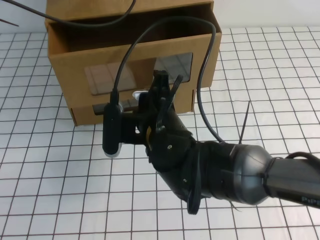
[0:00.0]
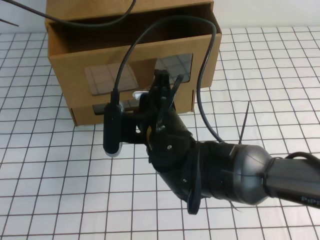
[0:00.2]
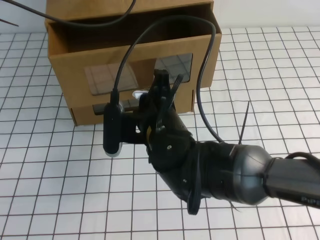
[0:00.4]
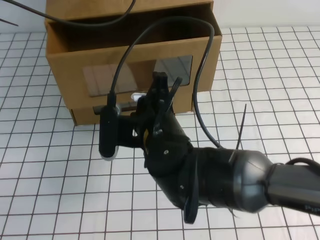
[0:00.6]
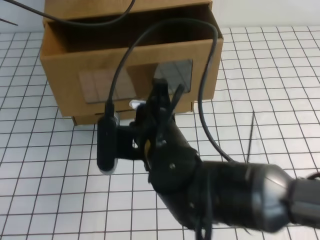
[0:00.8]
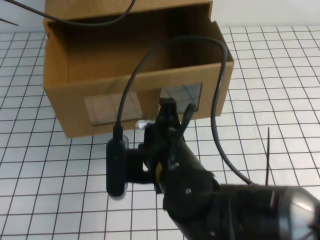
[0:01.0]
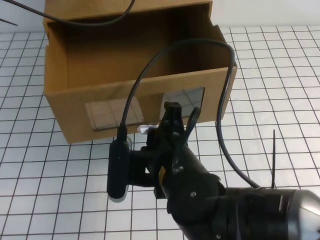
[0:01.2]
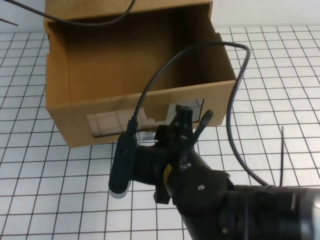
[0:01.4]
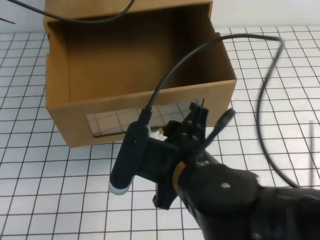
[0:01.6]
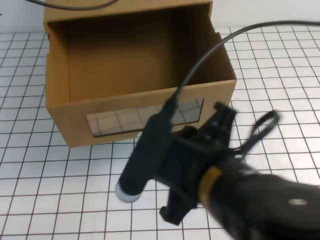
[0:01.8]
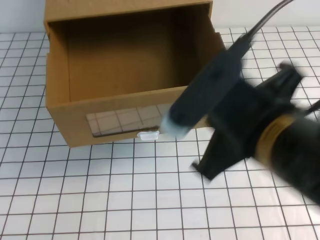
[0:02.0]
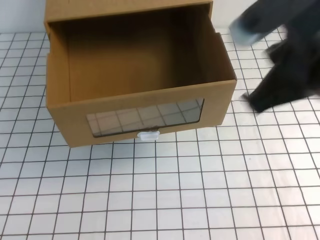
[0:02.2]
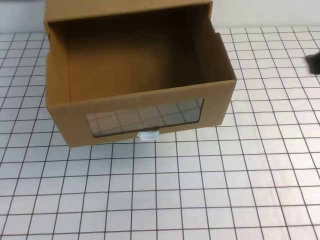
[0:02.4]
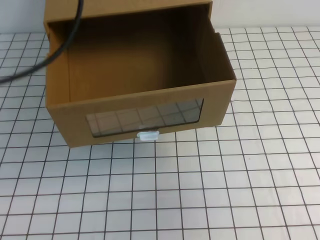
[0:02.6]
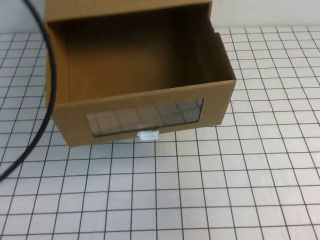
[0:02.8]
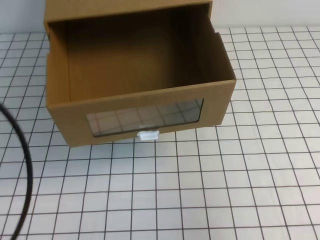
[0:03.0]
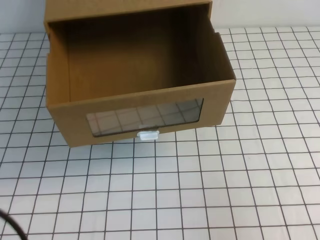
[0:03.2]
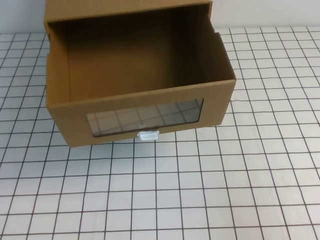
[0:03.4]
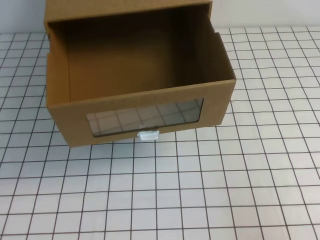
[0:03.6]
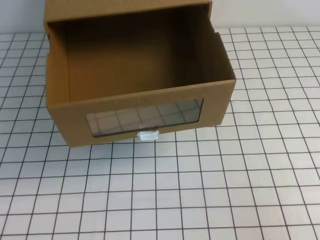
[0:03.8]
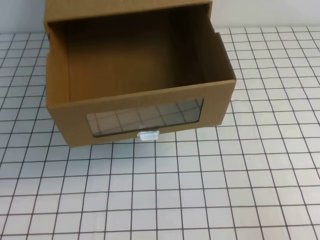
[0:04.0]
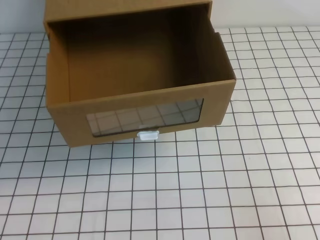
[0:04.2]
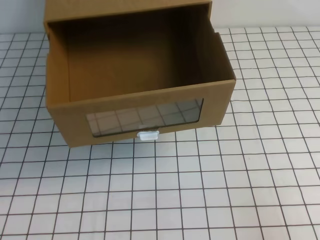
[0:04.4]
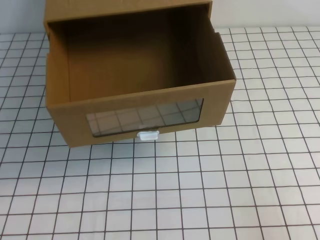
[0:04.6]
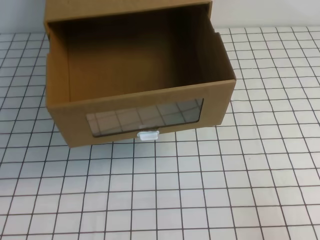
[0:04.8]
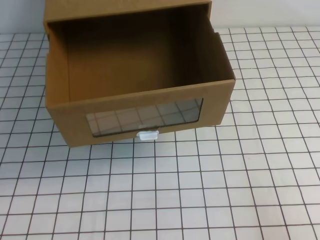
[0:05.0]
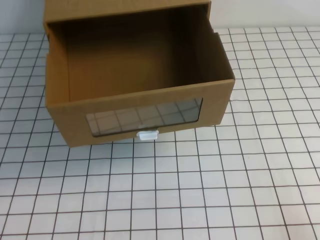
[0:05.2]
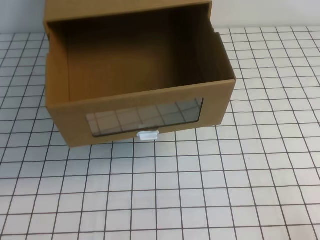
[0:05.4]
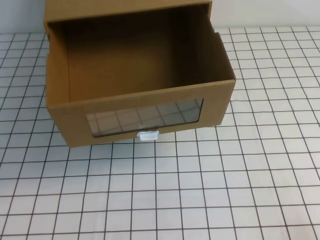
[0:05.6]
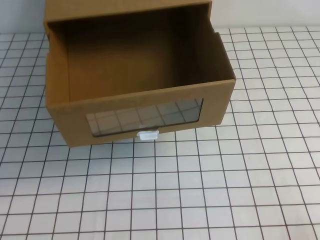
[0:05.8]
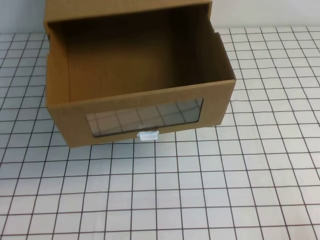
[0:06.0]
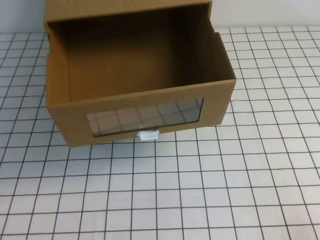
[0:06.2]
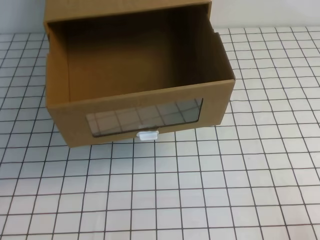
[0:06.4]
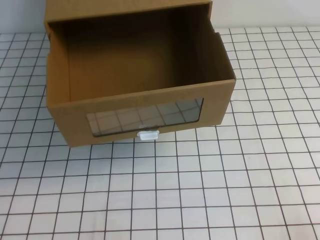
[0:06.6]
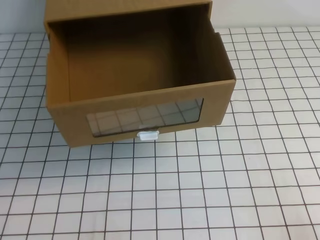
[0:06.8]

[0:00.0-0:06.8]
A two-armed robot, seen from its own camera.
Task of the whole recording: open the shoebox on the white tablecloth.
Step, 0:00.0 to 0:06.8: Open the shoe box.
0:00.0 to 0:01.4: The right gripper heads backward, covering roughly 10 cm.
0:01.4 to 0:02.8: The right gripper is displaced to the right and upward by about 30 cm, and closes up; the left gripper goes roughly 25 cm backward.
0:02.8 to 0:04.0: Both grippers move downward and backward, some 25 cm.

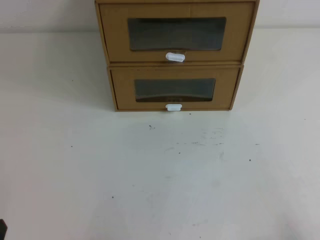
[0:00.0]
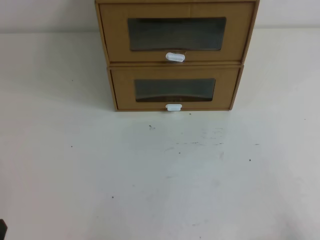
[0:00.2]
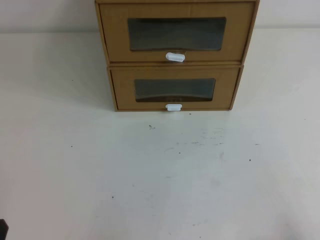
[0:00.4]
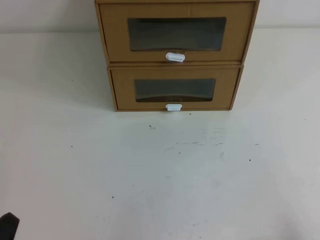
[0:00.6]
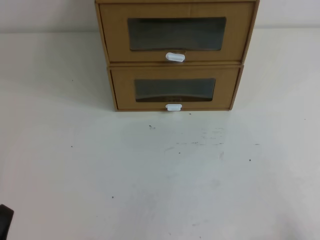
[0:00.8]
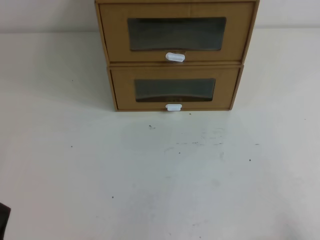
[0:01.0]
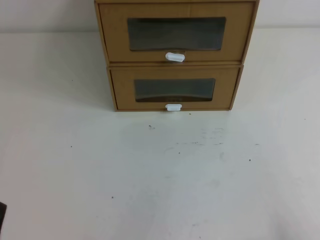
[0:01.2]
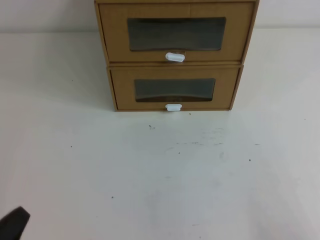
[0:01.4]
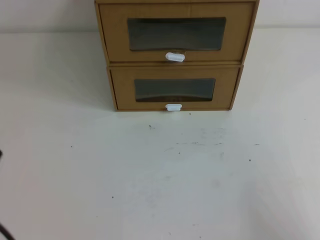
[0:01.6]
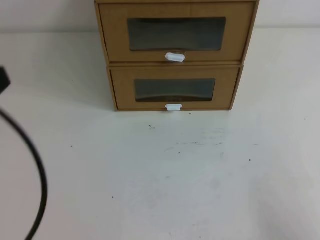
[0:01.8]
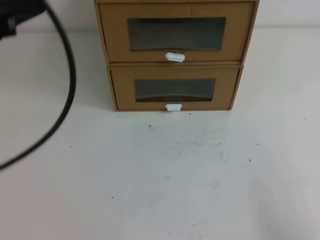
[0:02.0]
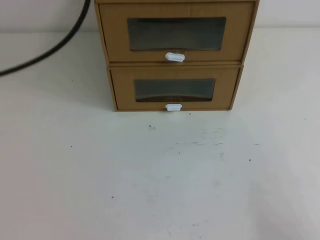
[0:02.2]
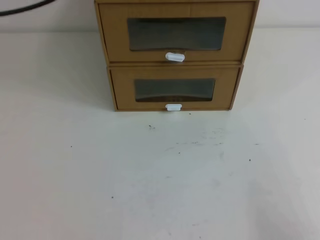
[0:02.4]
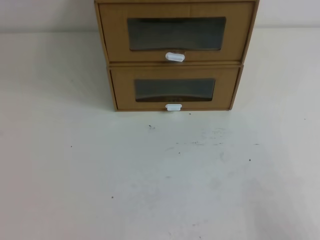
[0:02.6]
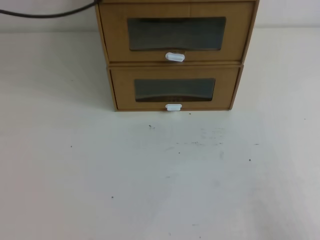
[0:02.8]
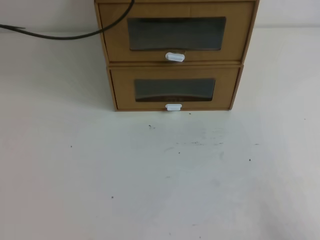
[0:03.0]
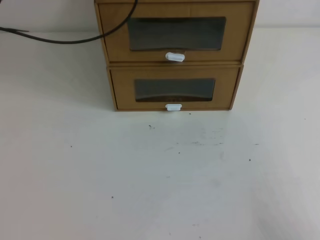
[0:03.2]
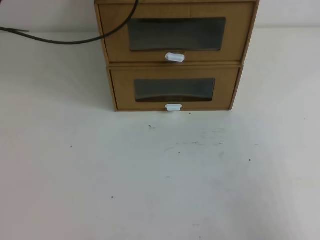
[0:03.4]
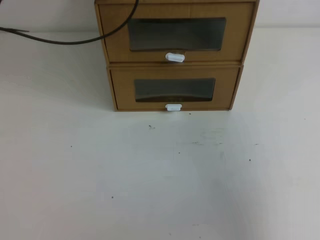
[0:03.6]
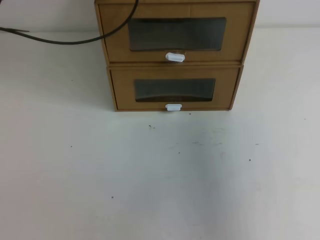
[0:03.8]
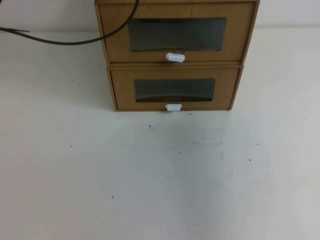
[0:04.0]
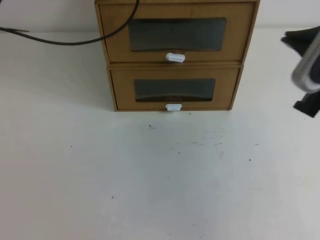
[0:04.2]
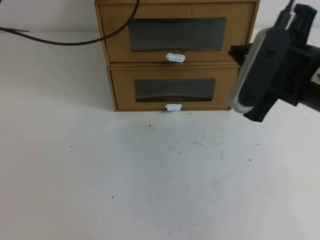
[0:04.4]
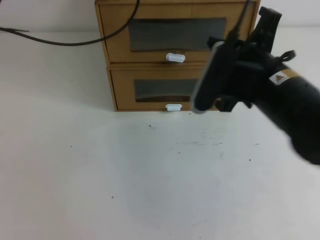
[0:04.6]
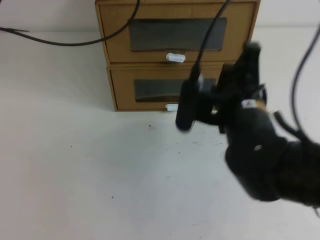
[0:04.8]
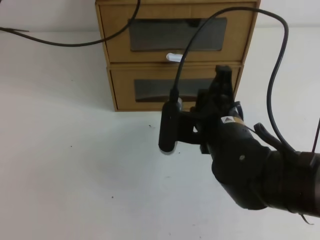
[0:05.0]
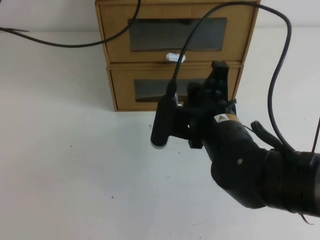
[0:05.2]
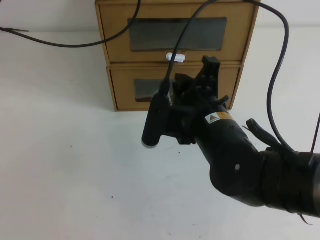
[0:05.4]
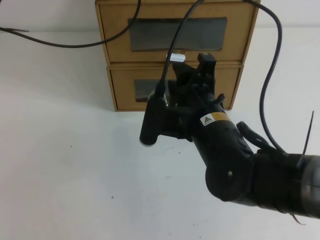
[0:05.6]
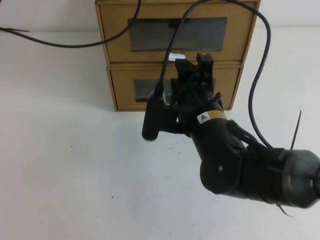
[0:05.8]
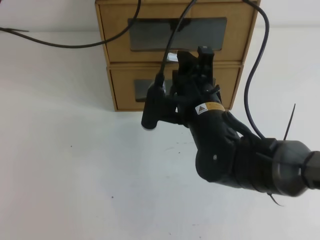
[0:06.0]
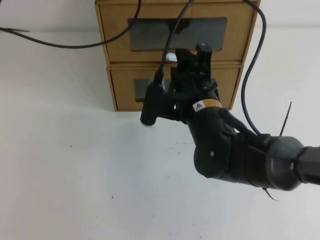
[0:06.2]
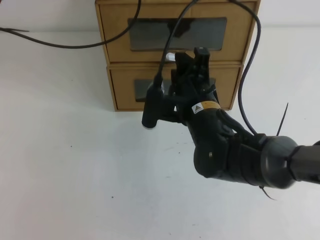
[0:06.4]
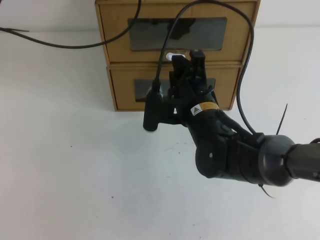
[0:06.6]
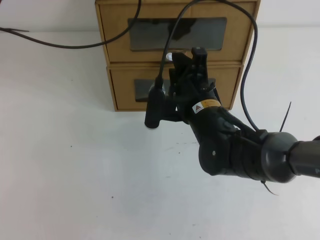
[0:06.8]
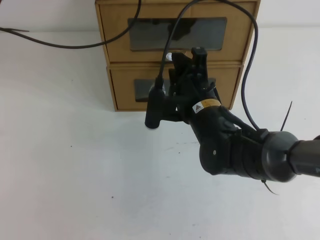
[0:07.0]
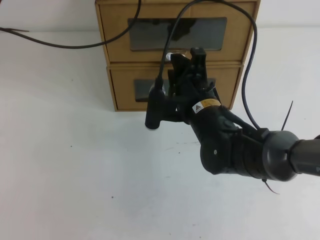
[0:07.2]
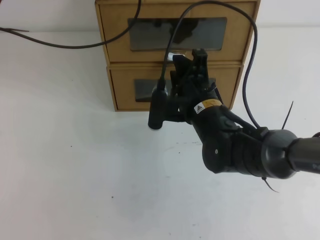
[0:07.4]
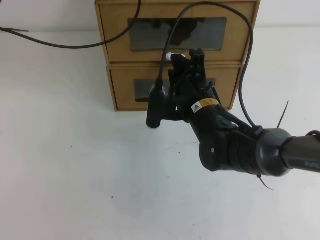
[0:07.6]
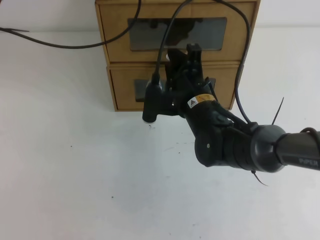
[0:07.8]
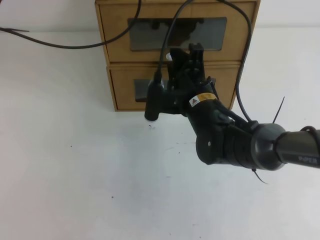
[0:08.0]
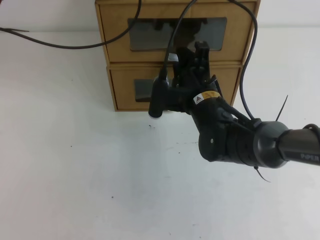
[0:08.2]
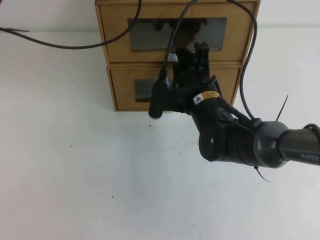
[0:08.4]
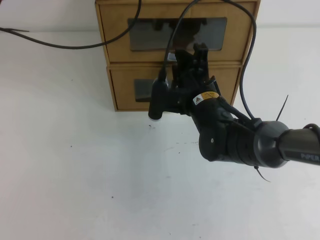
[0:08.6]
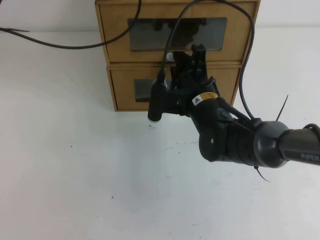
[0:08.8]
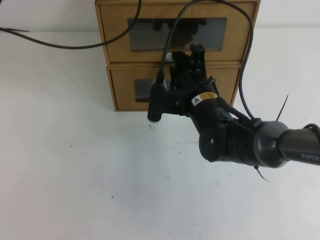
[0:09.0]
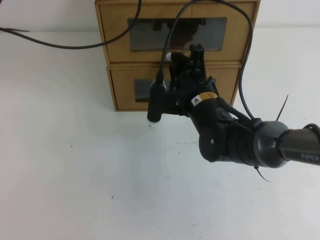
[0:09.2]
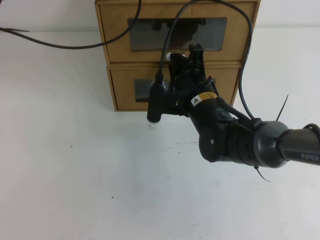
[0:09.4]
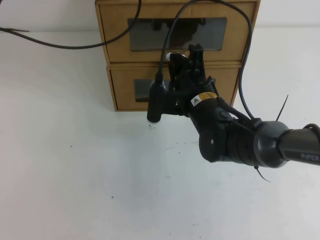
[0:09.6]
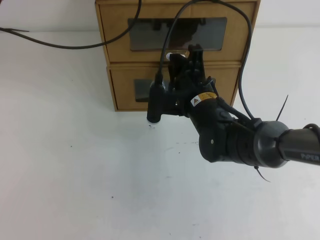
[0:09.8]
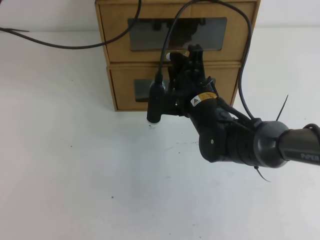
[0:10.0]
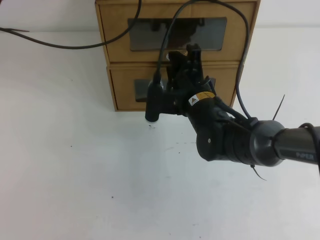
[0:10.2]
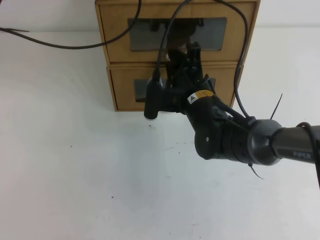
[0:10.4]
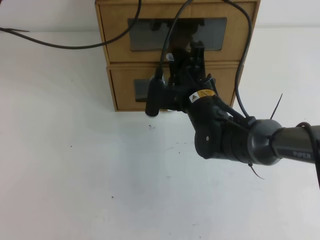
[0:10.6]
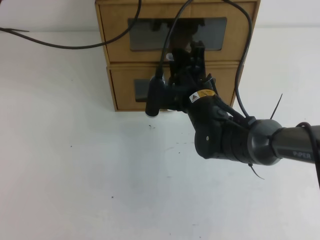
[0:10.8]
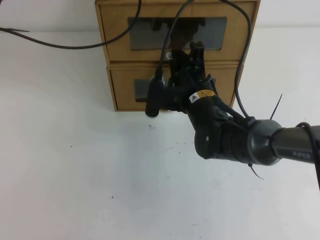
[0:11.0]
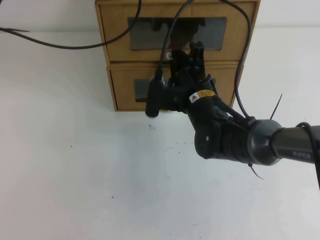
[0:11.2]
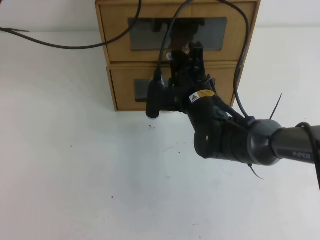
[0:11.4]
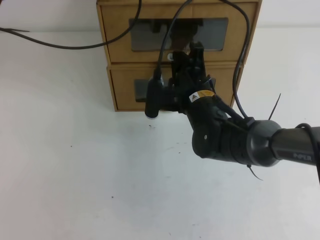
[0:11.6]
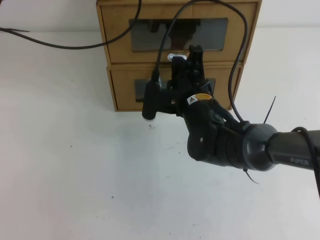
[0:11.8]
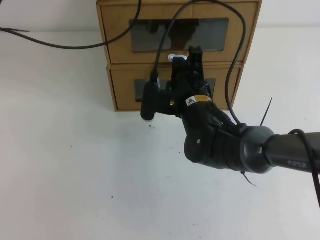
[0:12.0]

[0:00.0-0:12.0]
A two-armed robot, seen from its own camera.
Task of the whole recording: open the shoebox on the table.
0:01.6 to 0:03.0: The left gripper goes roughly 40 cm forward.
0:03.0 to 0:04.4: The right gripper heads forward, upward and to the left, covering about 30 cm.
0:04.4 to 0:06.0: The right gripper is displaced to the left and downward by some 15 cm, and opens its fingers.
0:06.0 to 0:07.6: The right gripper moves some 5 cm.
0:07.6 to 0:09.0: There are only small adjustments of the grippers.
0:09.0 to 0:10.4: Neither gripper changes place.
0:10.4 to 0:12.0: The right gripper closes its fingers.

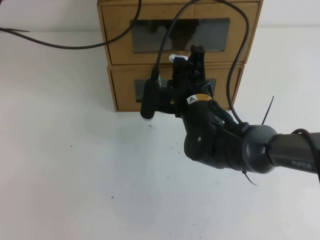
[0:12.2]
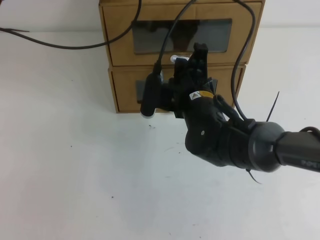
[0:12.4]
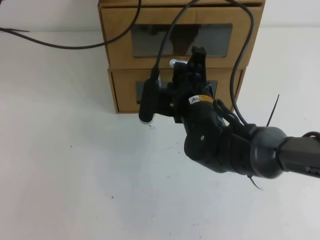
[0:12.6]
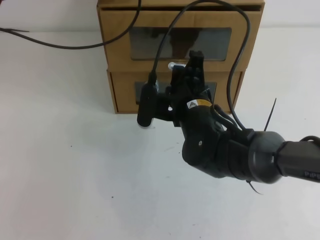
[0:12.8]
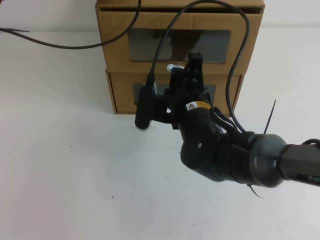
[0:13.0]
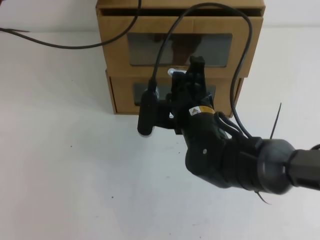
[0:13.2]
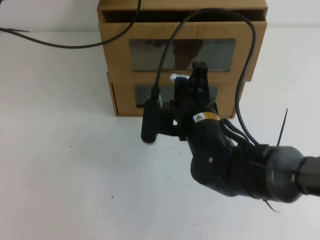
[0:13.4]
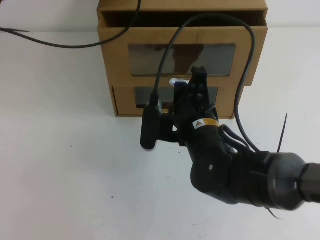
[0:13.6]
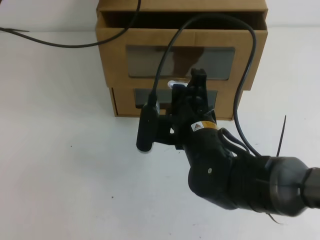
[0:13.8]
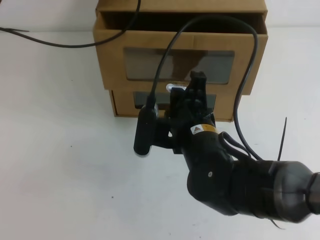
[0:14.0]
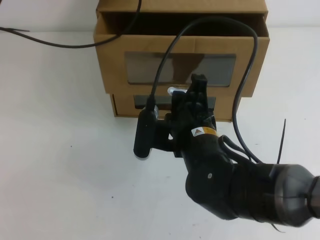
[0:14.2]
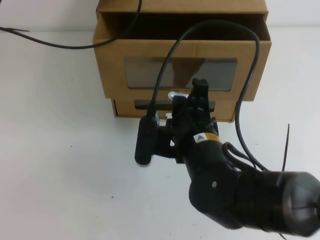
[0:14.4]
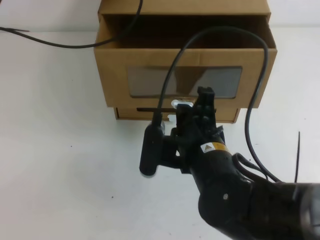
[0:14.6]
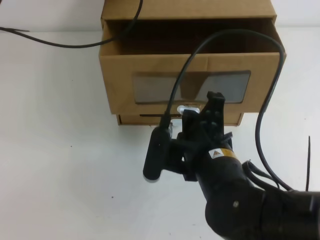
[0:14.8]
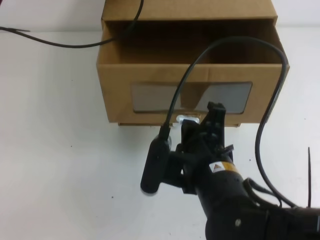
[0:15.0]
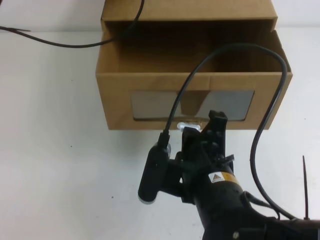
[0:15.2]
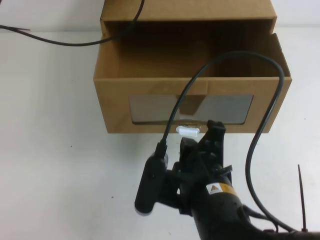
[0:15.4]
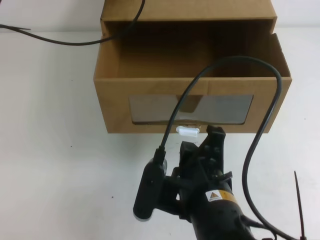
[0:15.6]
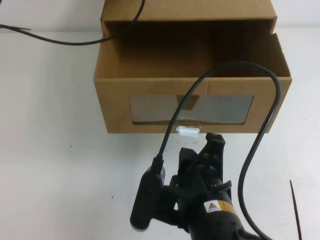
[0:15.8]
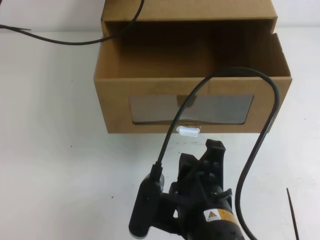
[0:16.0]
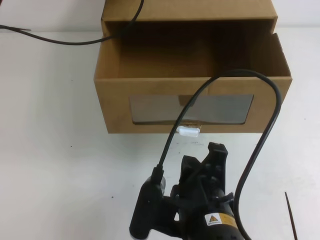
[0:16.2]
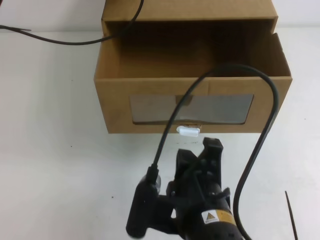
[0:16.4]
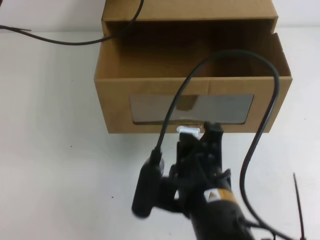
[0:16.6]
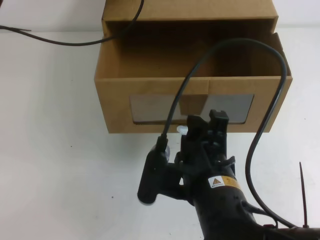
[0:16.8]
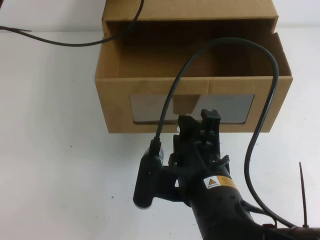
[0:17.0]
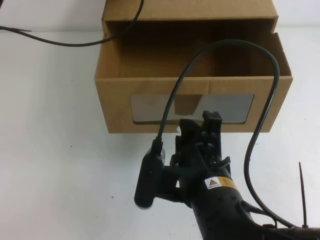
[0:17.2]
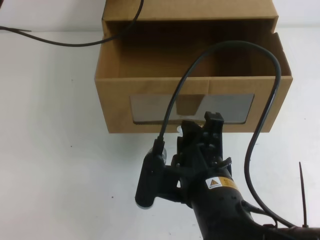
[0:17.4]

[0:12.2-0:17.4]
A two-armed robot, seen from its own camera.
Task of the whole recording: open the shoebox on the table.
0:12.2 to 0:14.0: The right gripper goes about 10 cm backward.
0:14.0 to 0:15.6: The right gripper moves backward, about 10 cm.
0:15.6 to 0:17.4: The right gripper opens up.
